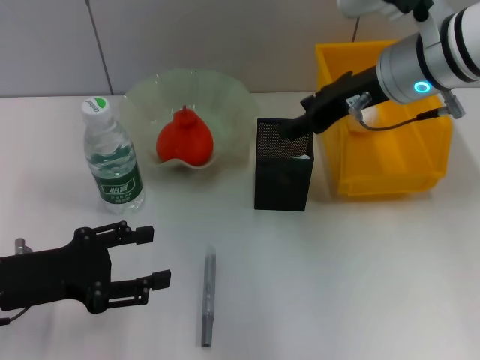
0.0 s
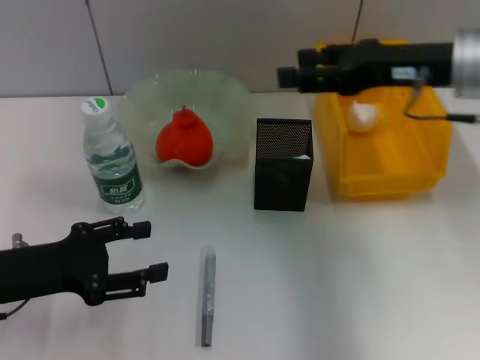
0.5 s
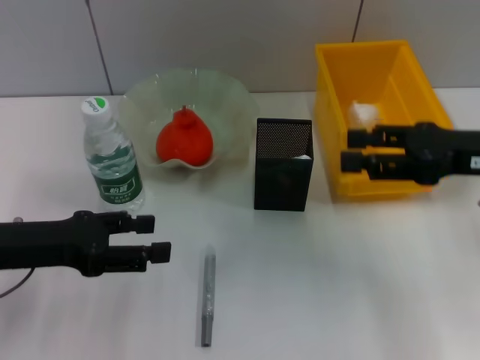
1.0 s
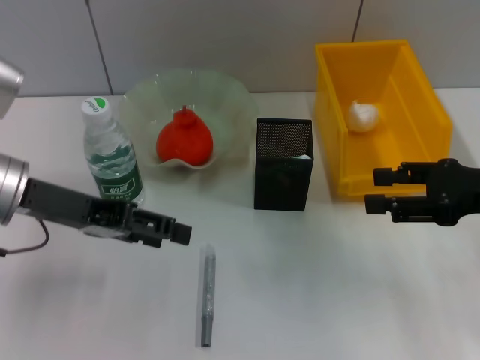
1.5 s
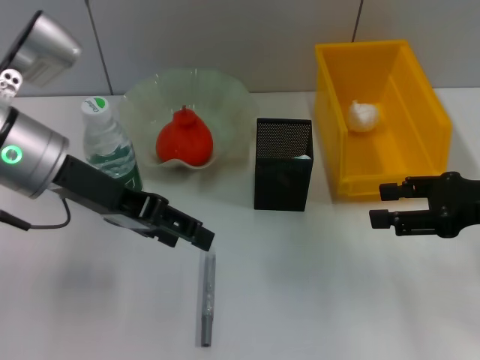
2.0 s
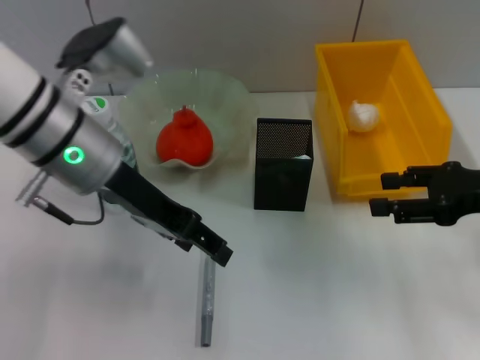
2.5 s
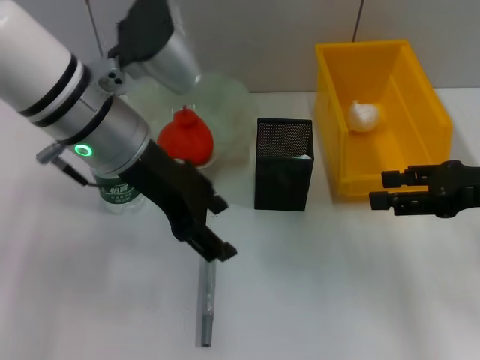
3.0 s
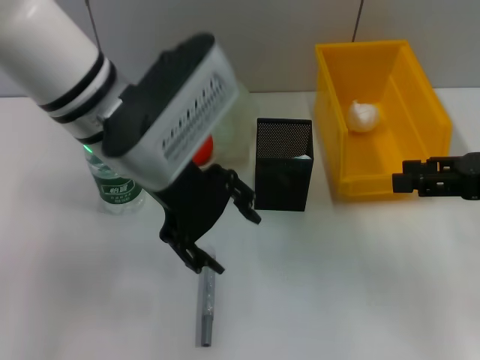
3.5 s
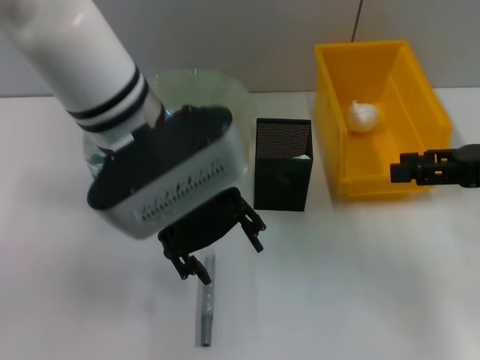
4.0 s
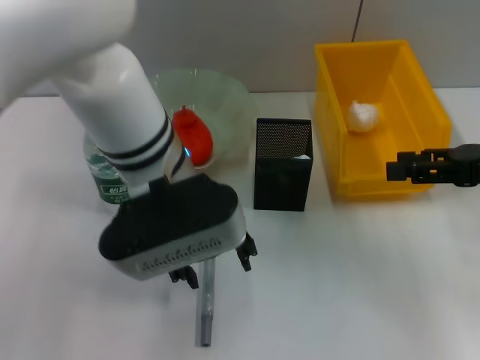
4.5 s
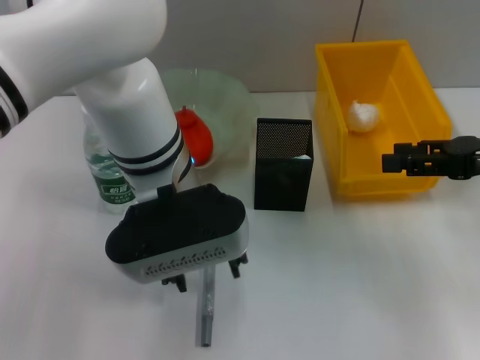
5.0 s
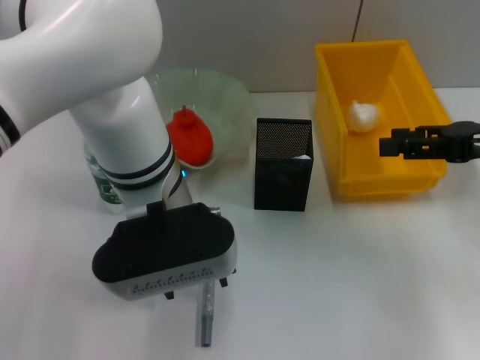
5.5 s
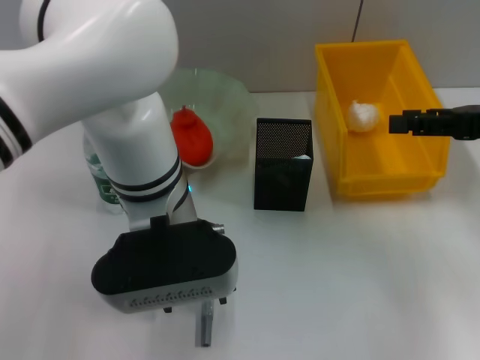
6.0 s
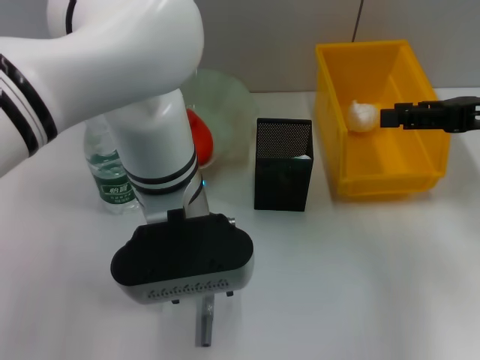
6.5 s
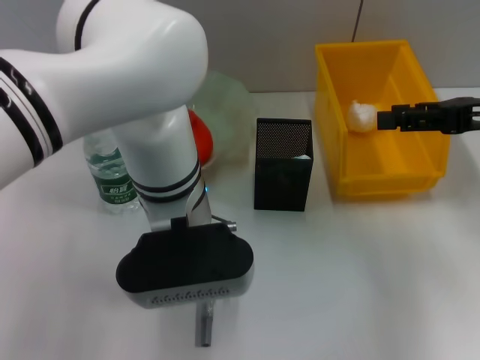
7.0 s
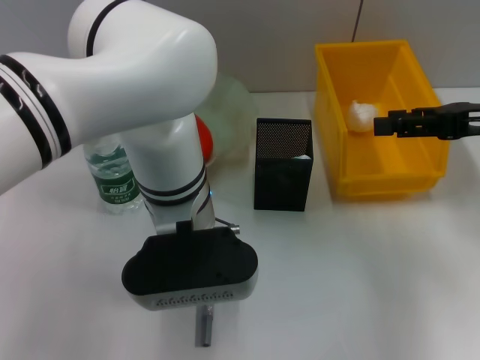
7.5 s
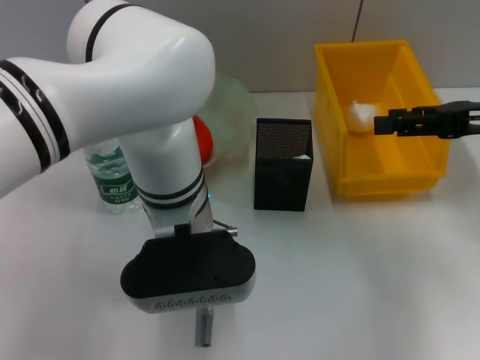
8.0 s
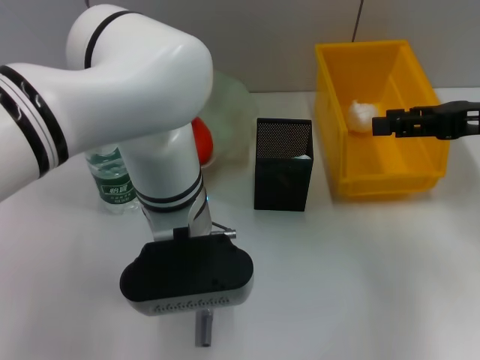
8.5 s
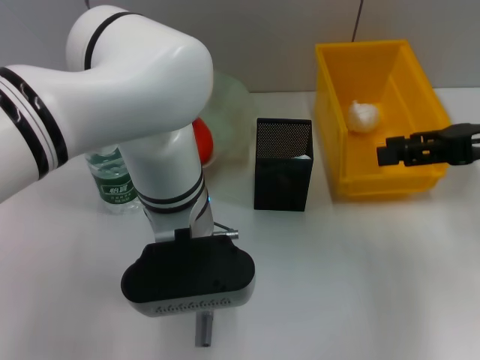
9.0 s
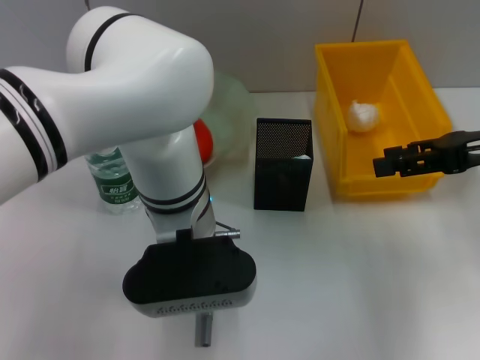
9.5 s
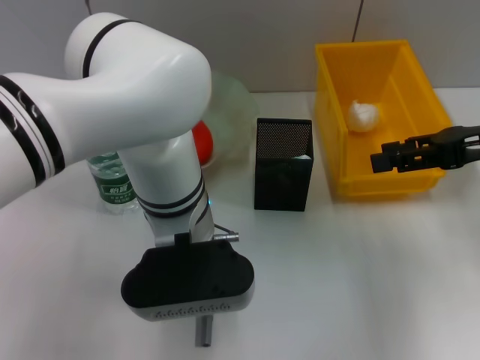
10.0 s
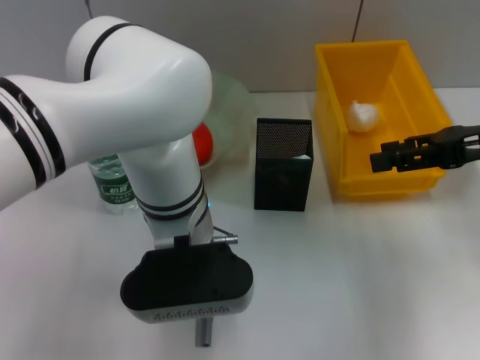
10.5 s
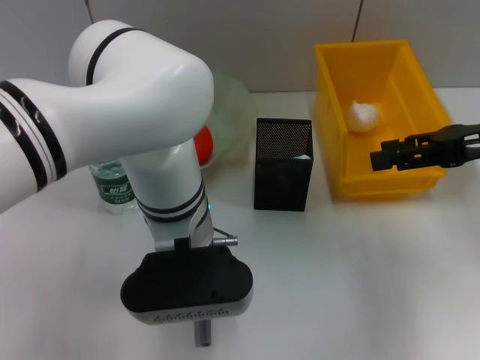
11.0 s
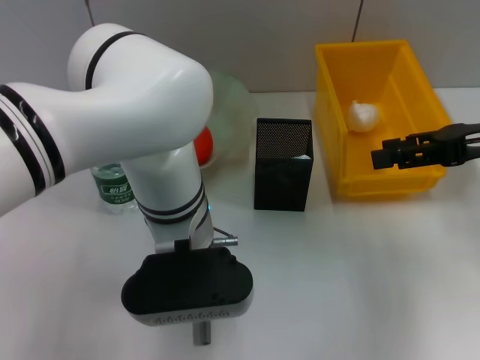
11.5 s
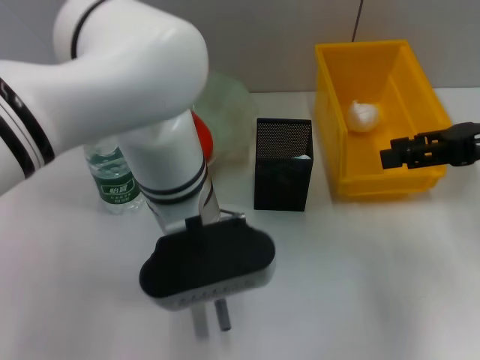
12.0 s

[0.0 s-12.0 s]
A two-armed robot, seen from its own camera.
Step, 0.0 to 4.5 s: Pass the gray glue from the left hand to the right hand.
Step, 5.0 to 11.5 s: Grab the gray glue with the left hand.
0.0 to 2.0 s: The left gripper is displaced upward, forward and to the right by some 15 cm, while the right gripper shifts roughly 20 cm to the right, backward and downward.
2.0 to 4.0 s: The left gripper is displaced to the right by some 10 cm.
4.0 to 6.0 s: The left gripper shifts approximately 5 cm downward.
8.0 to 12.0 s: The grippers move only a little.

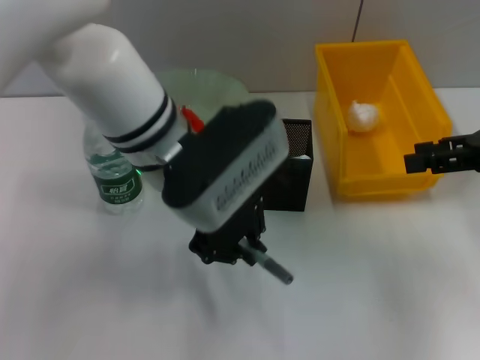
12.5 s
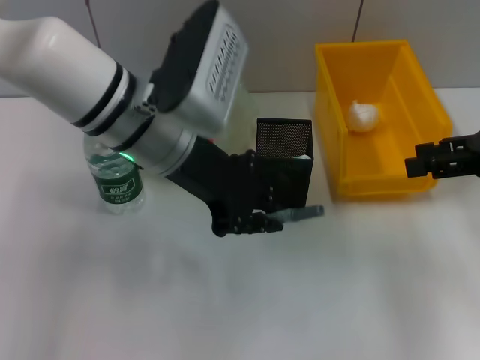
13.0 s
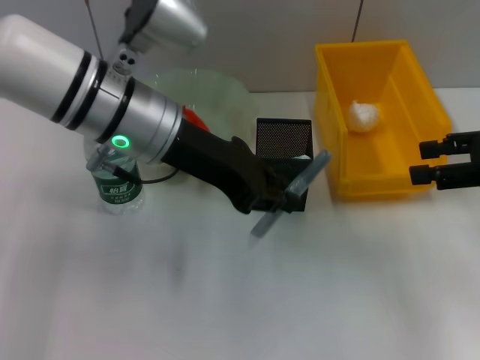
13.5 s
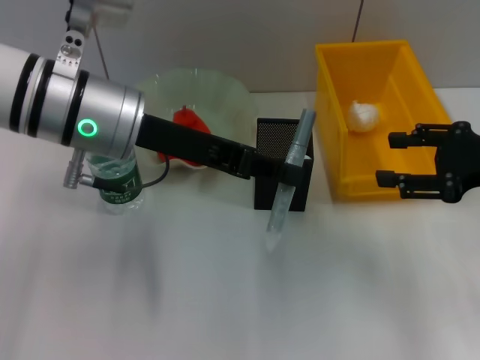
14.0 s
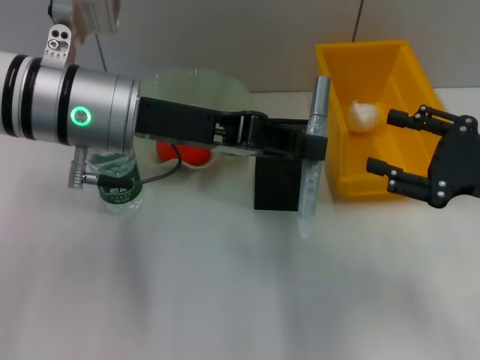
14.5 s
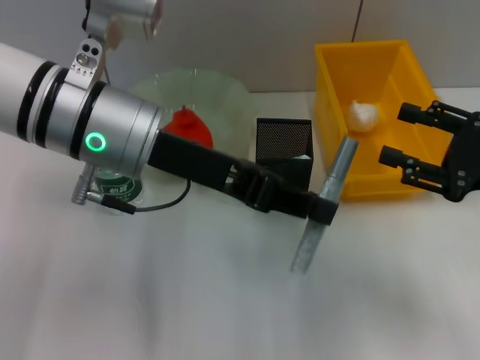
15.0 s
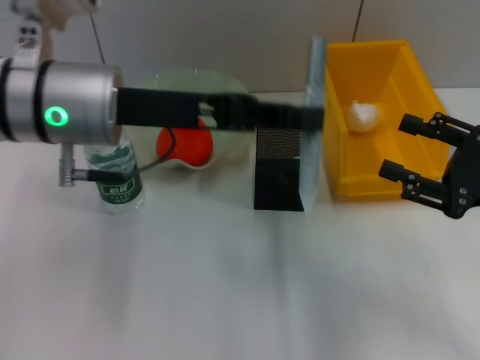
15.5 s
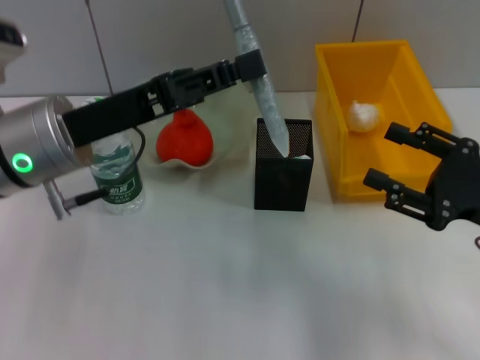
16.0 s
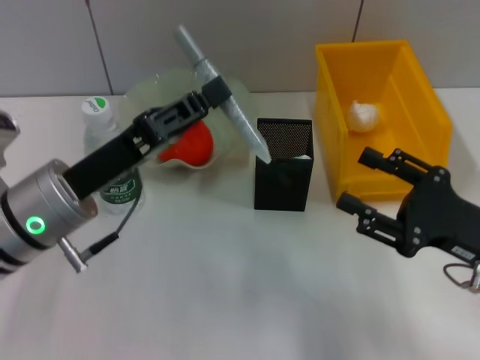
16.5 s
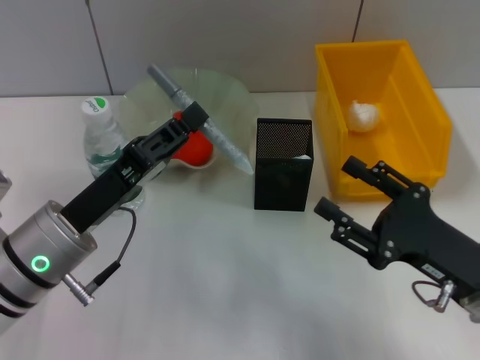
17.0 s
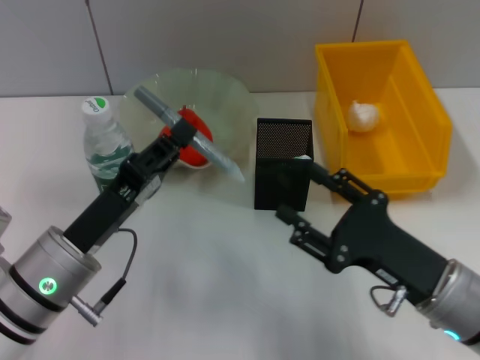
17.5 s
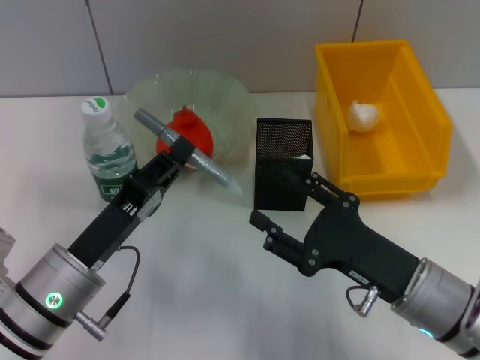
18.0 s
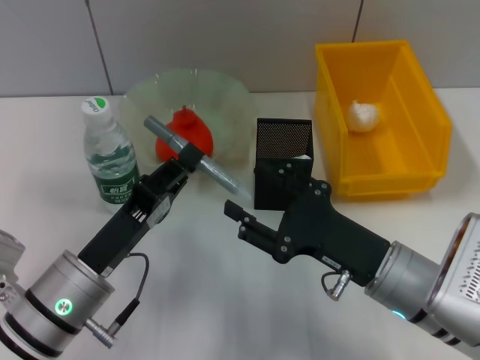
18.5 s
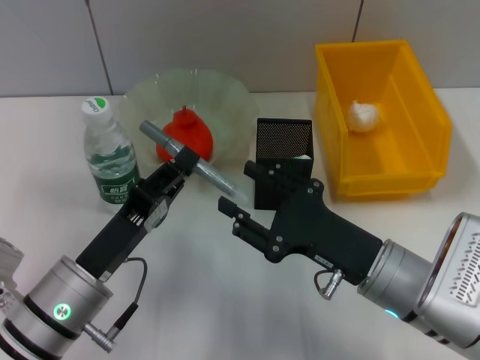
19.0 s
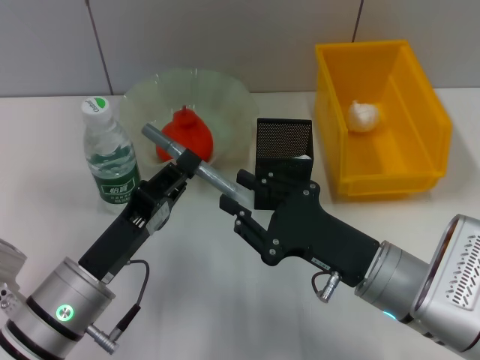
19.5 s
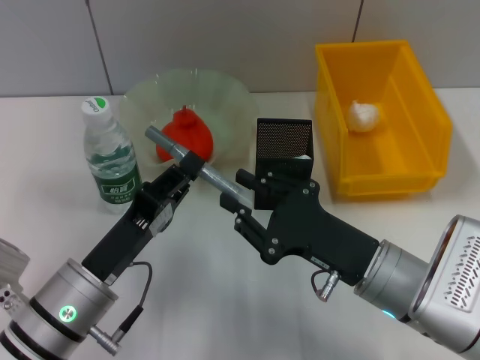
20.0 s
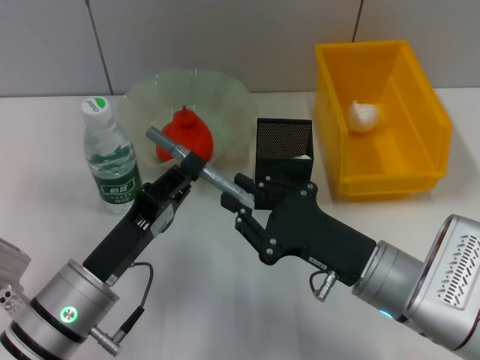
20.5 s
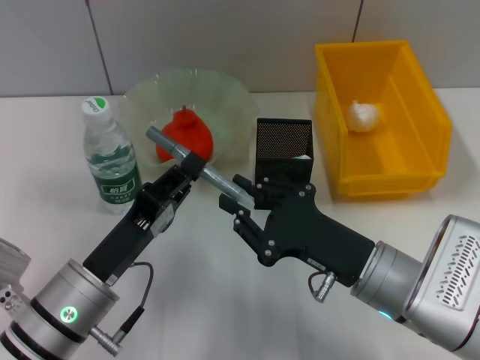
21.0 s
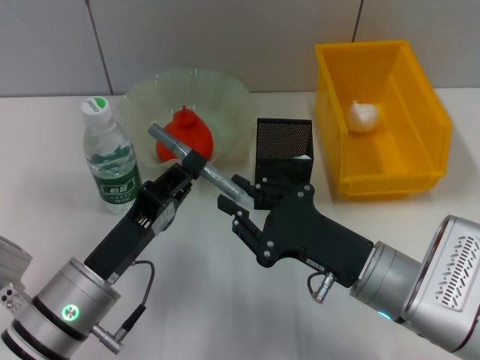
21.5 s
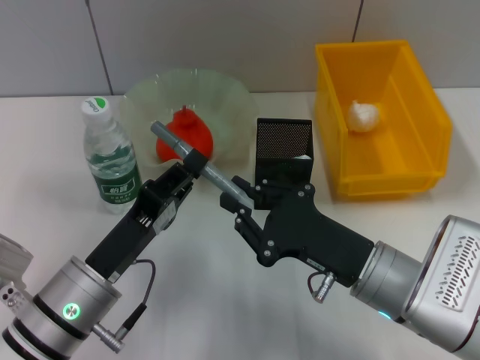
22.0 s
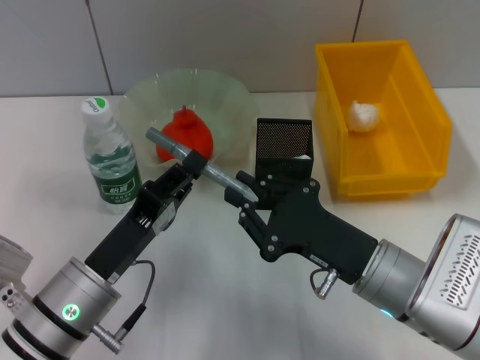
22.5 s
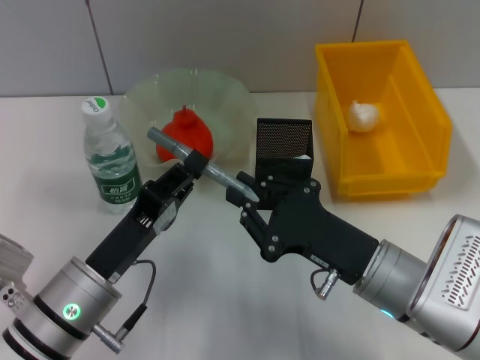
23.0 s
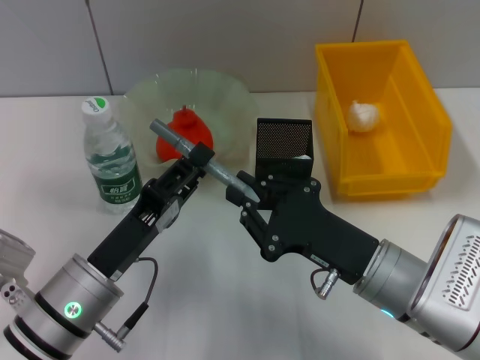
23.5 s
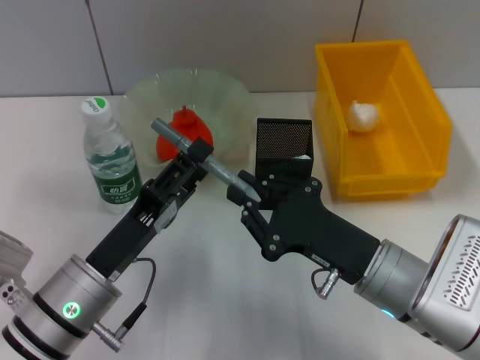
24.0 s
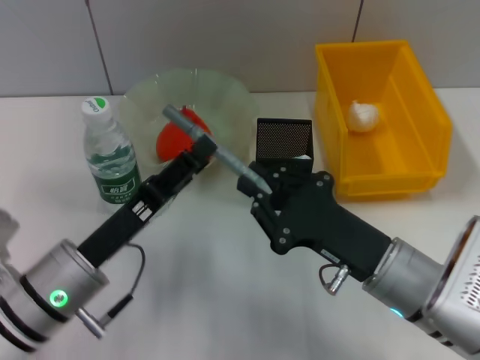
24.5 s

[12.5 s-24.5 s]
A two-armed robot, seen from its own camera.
12.5 to 14.5 s: The left gripper moves to the left, roughly 5 cm; the right gripper shifts some 5 cm downward.
14.5 to 16.5 s: The right gripper moves some 5 cm. Meanwhile the left gripper travels downward by approximately 10 cm.
16.5 to 18.5 s: The right gripper travels to the left by roughly 10 cm. Meanwhile the left gripper travels downward and backward by some 10 cm.
18.5 to 20.5 s: The right gripper closes up.
20.5 to 22.5 s: The two grippers keep their place.
22.5 to 24.5 s: The left gripper opens.

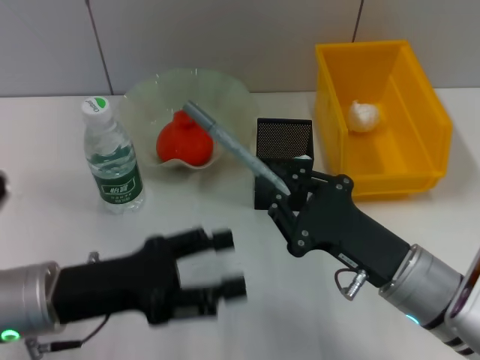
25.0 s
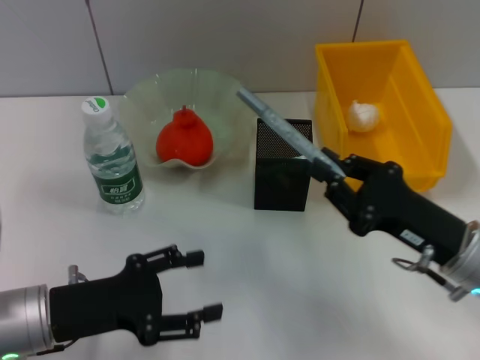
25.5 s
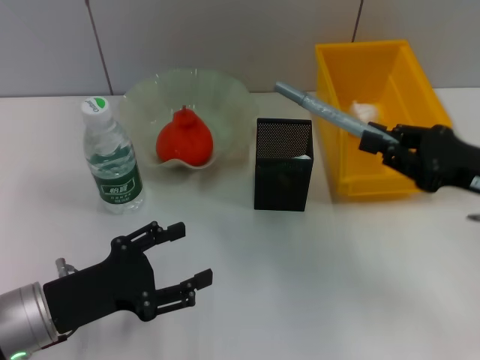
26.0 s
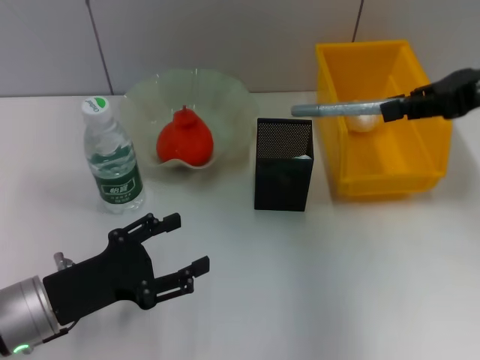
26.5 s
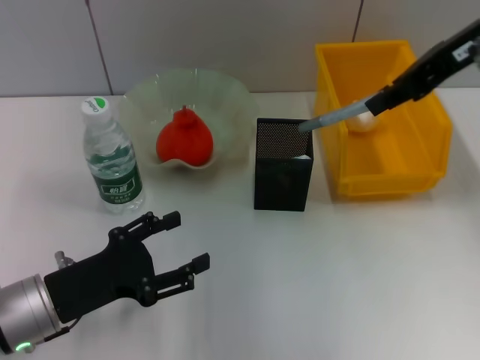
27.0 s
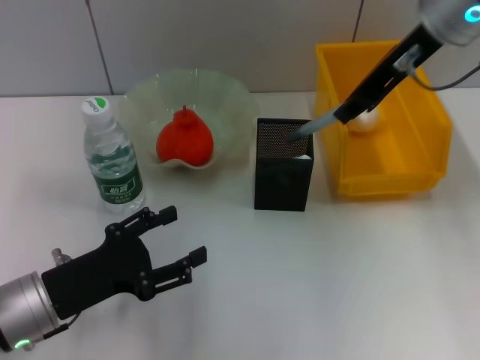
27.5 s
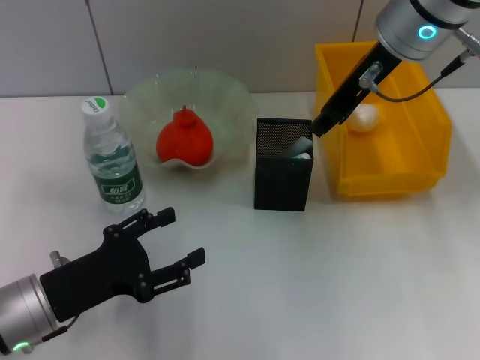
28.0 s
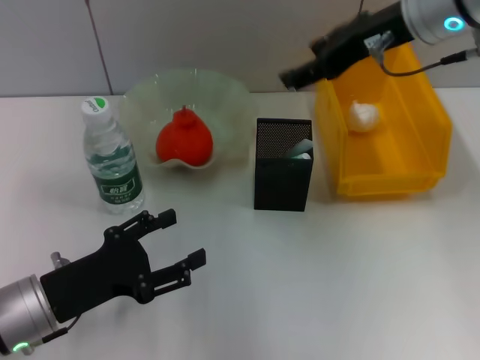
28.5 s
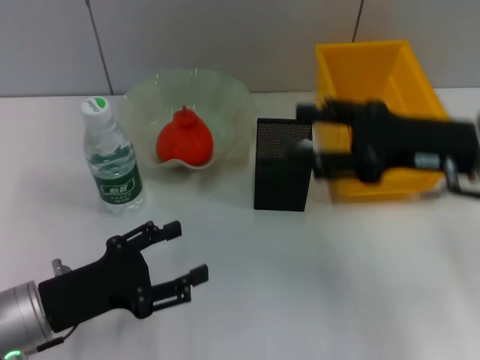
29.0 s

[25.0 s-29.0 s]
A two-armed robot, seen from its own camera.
Step, 25.0 to 28.0 s: Place the gray glue into the pen holder with the right hand.
25.0 to 27.0 s: The right gripper heads upward and forward, covering roughly 30 cm.
27.0 to 29.0 s: The right gripper is displaced downward and backward by roughly 15 cm, and opens its fingers.
